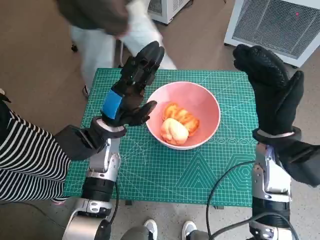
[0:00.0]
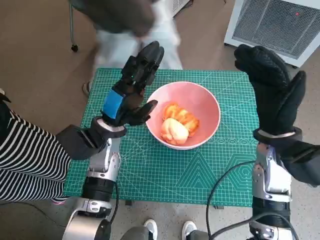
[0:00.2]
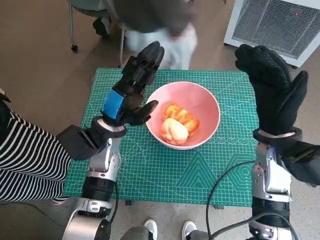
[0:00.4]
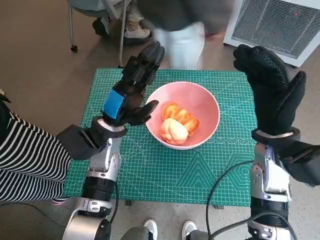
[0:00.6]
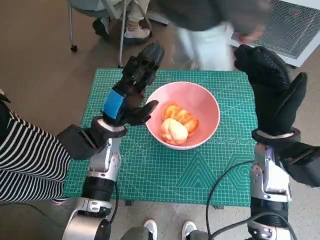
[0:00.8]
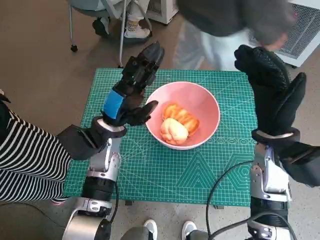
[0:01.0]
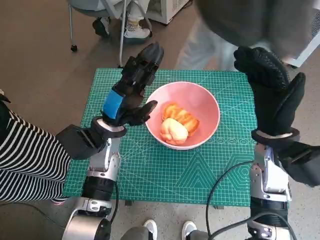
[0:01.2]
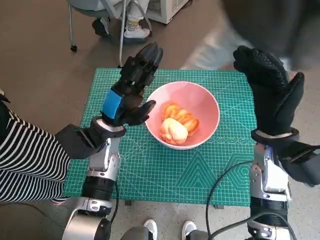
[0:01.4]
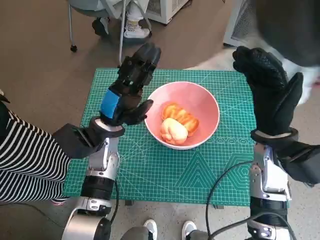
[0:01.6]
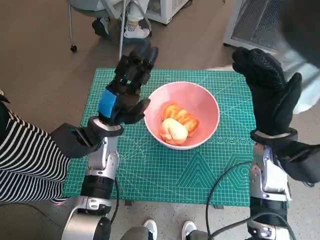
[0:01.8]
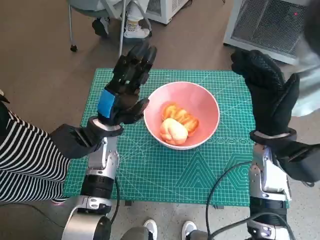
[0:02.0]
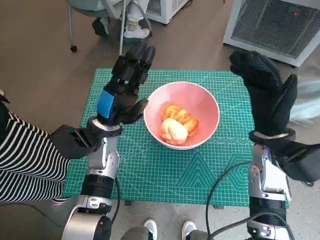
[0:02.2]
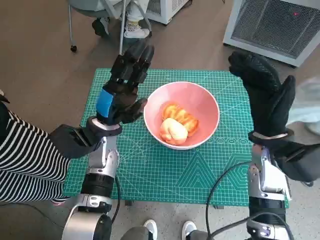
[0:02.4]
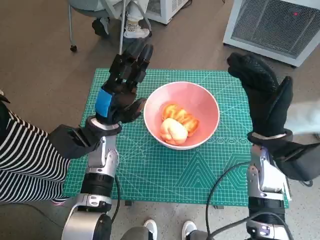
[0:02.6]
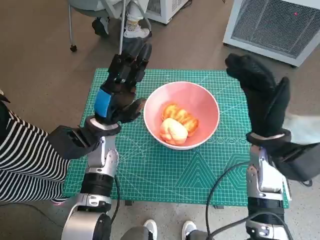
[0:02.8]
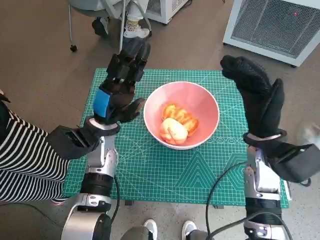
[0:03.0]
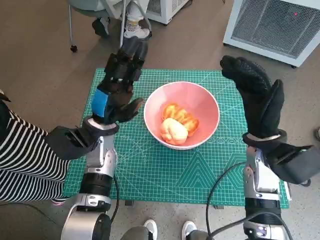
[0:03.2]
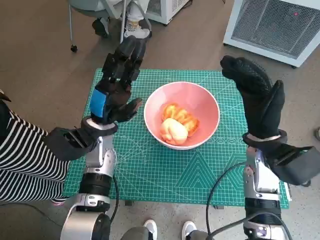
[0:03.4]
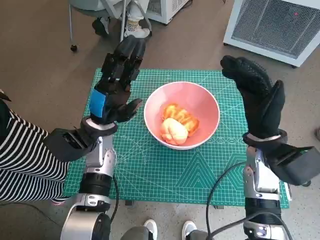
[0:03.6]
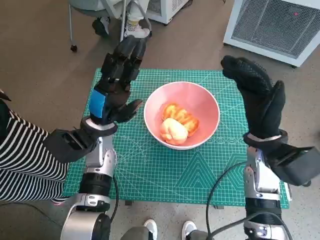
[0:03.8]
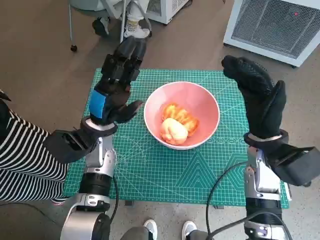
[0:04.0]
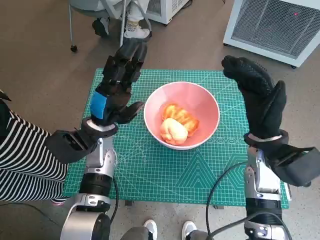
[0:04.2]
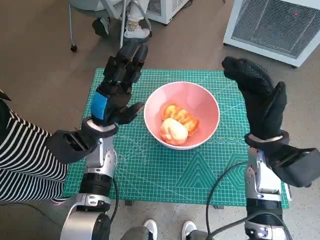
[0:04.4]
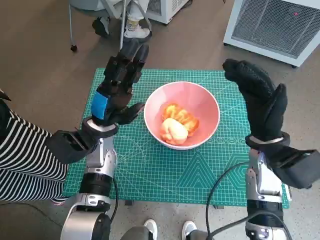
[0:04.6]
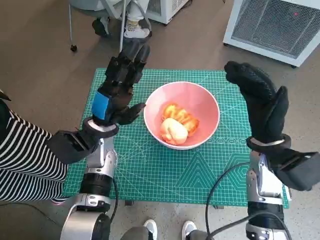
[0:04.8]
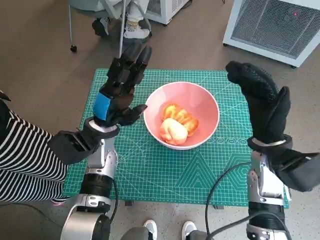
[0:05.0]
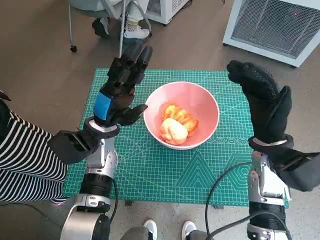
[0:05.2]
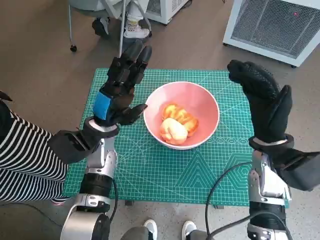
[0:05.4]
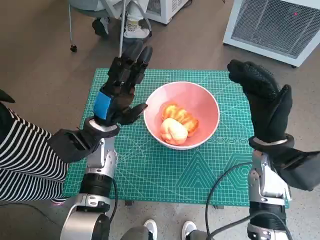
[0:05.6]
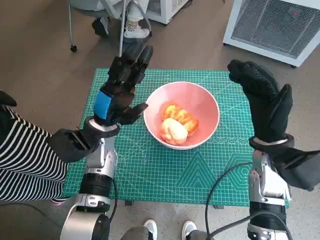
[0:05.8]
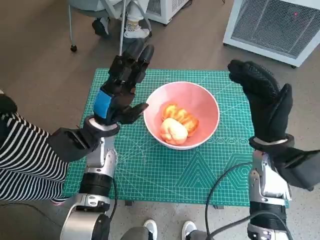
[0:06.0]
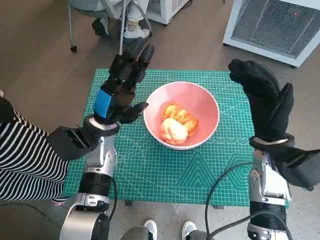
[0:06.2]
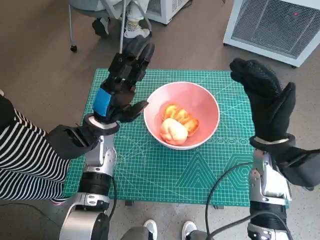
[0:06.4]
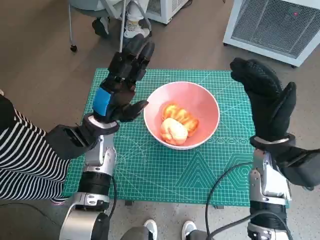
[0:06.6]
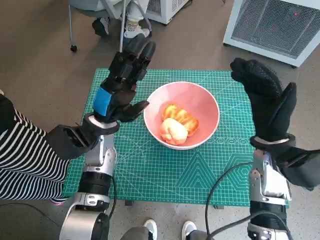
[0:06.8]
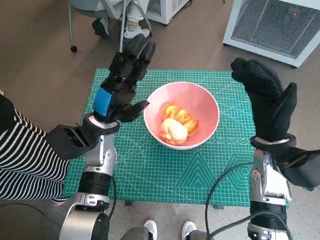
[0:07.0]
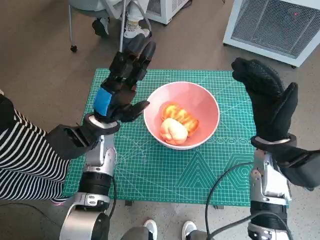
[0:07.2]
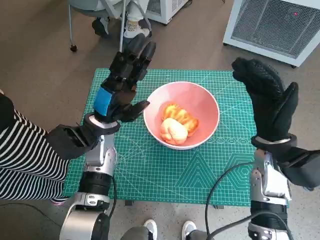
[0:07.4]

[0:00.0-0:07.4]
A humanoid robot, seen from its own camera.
Task of the whole recording: Push the bowl into the center of the table and put the bread into the bowl.
0:03.0 to 0:07.4: Both hands stay put.

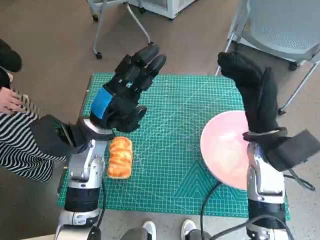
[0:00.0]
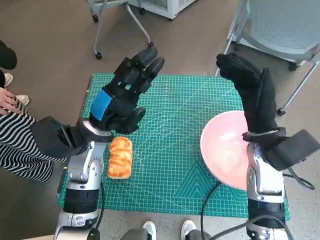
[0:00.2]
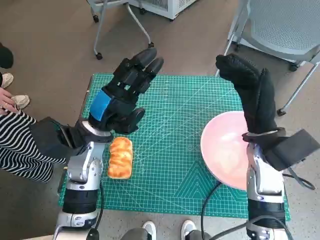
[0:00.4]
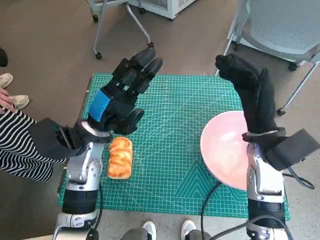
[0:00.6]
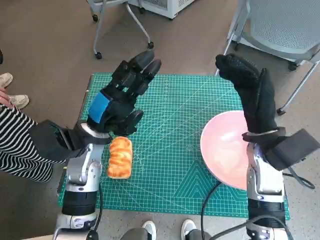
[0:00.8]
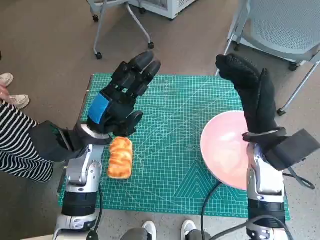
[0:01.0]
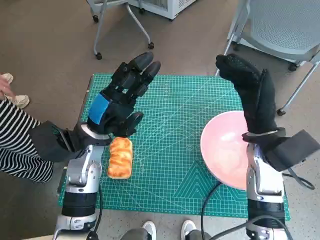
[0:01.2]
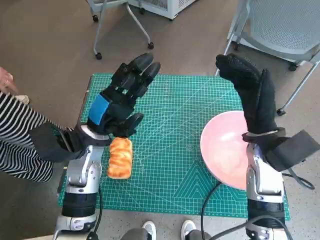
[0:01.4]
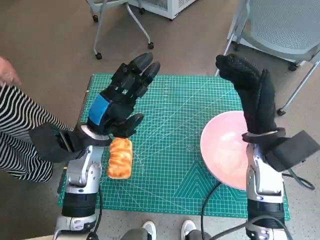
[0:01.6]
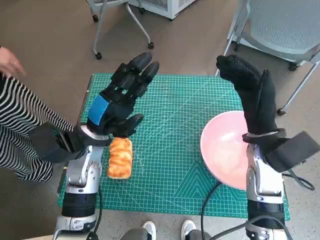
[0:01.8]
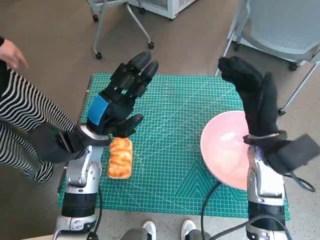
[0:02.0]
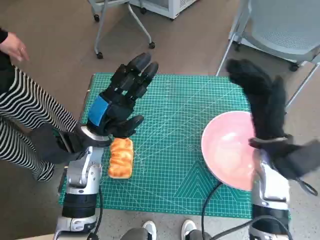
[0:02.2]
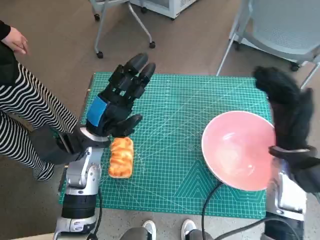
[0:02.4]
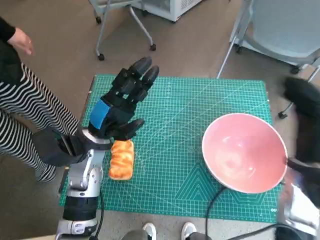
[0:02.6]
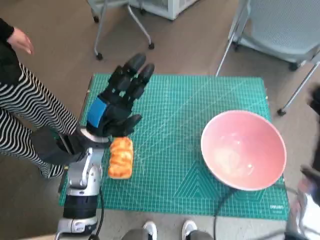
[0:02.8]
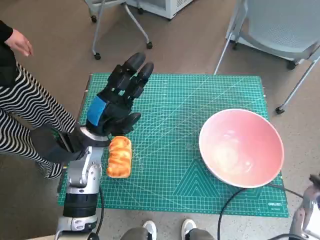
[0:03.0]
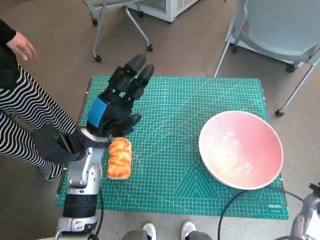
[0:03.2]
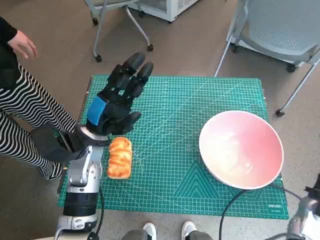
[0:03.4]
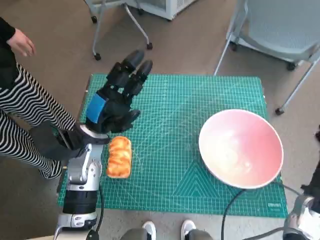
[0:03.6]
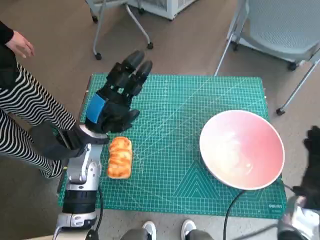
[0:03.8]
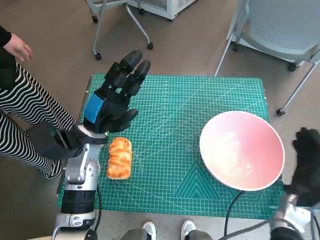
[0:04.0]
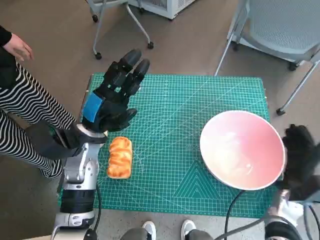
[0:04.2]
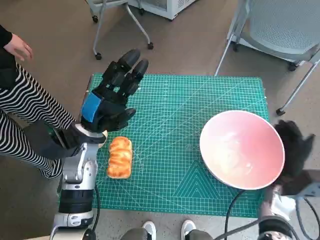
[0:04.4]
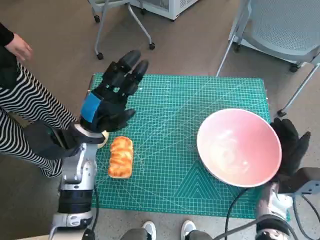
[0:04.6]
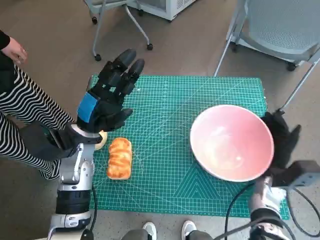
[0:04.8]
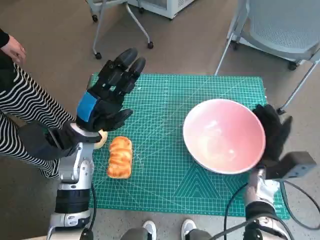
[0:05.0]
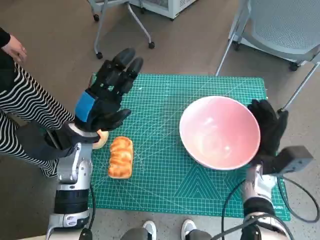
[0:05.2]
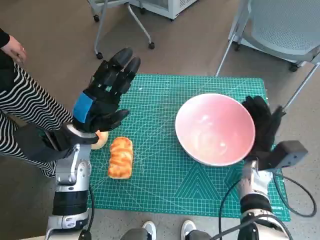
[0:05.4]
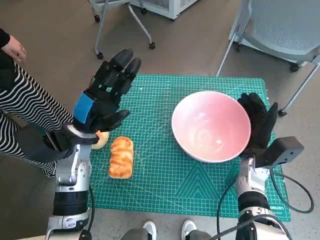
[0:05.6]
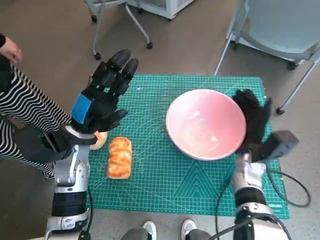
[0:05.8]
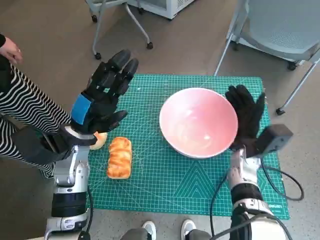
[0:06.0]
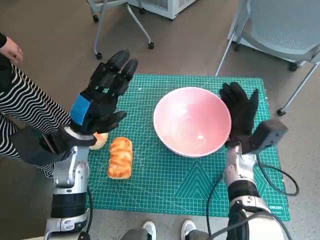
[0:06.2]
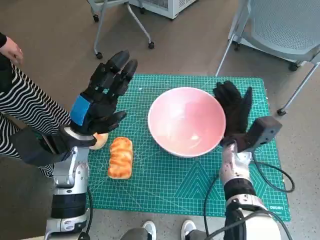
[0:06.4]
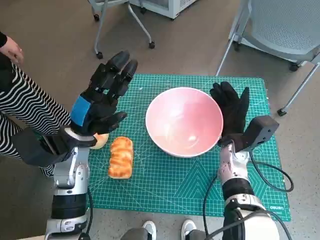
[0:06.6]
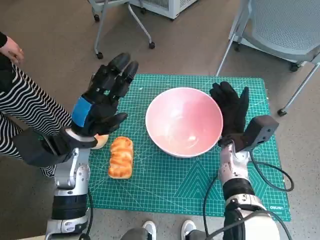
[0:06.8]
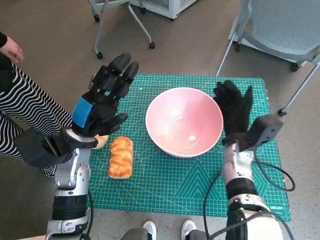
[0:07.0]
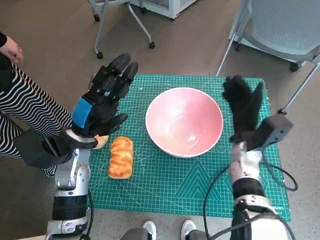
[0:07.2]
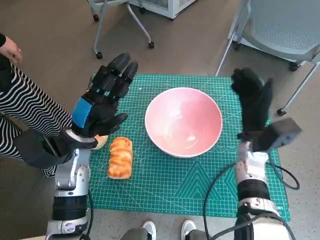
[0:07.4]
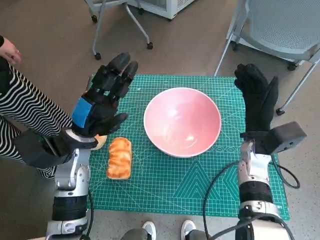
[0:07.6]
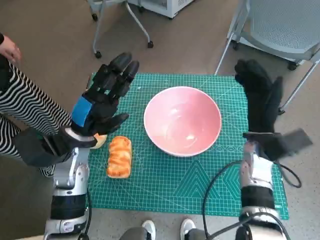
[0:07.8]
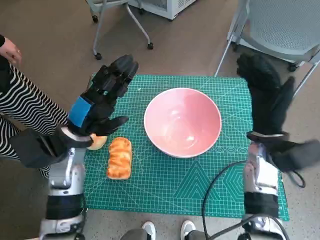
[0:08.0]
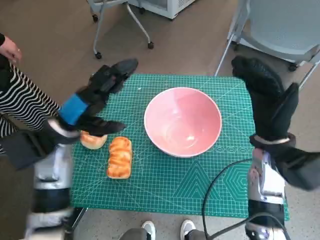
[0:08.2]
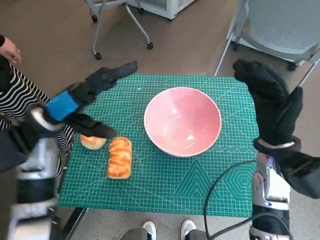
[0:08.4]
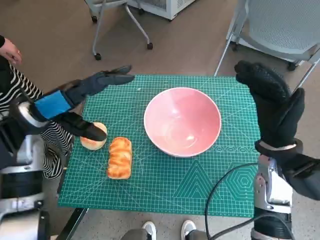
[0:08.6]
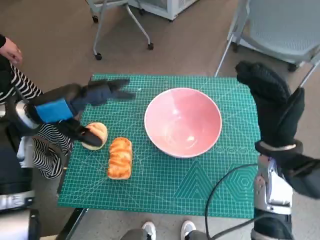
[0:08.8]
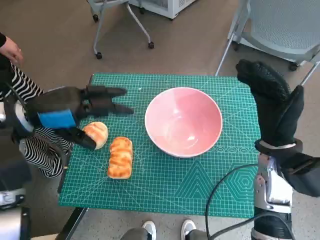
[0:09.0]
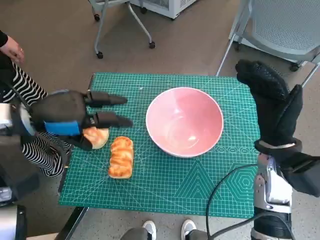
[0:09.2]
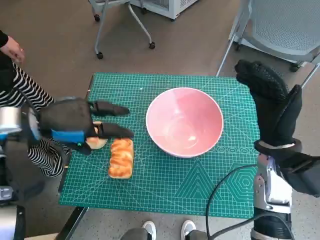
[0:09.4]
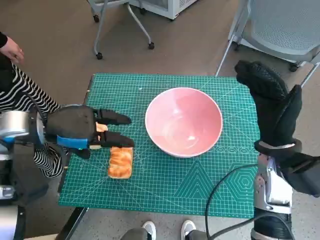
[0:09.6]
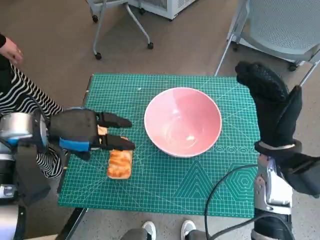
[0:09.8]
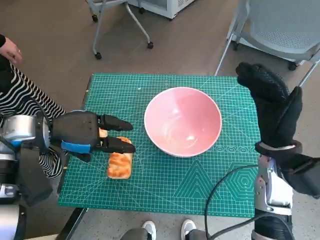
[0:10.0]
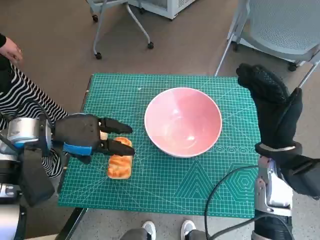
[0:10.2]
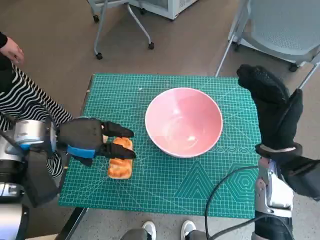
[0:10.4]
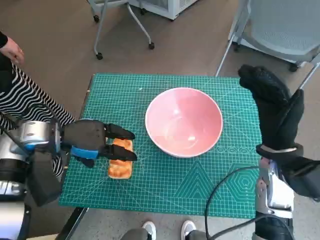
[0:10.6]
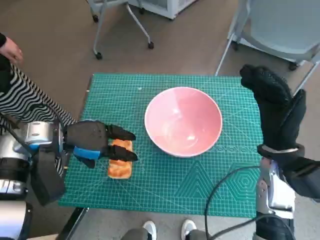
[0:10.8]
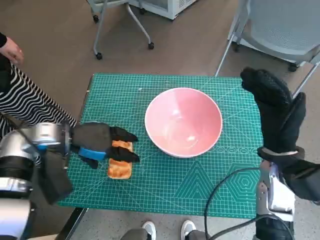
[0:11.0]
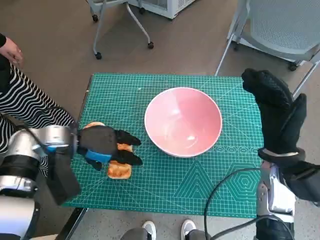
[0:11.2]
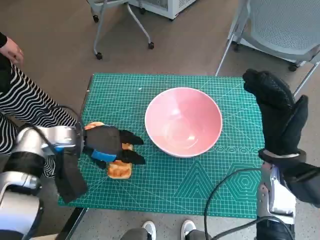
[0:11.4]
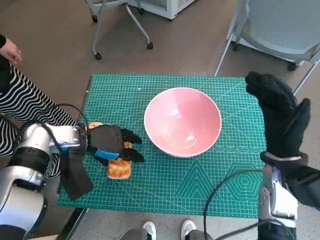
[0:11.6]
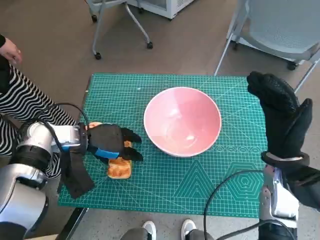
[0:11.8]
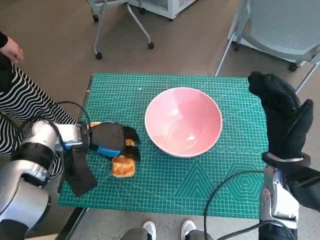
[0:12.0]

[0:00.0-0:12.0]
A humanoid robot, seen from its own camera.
Task of the whole recording: Push the bowl into the center of the table and put the bread into the bowl.
Step, 0:00.0 to 0:07.2: Move the pink bowl to the center of table with right hand.
0:01.6 to 0:03.0: The right hand moves to the right and backward, approximately 15 cm.
0:03.0 to 0:04.4: The right hand shifts some 10 cm downward.
0:04.4 to 0:06.0: The right hand is displaced to the left and forward by roughly 10 cm.
0:07.6 to 0:09.0: The left hand shifts approximately 10 cm upward and to the left. Meanwhile the right hand moves upward, some 5 cm.
0:09.0 to 0:10.4: The left hand shifts roughly 5 cm downward.
0:10.4 to 0:12.0: The left hand moves downward, roughly 5 cm.

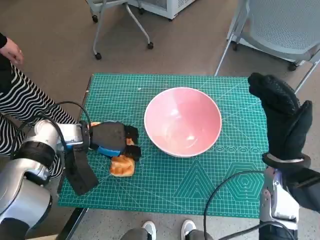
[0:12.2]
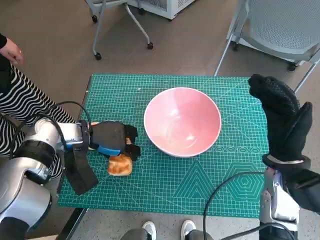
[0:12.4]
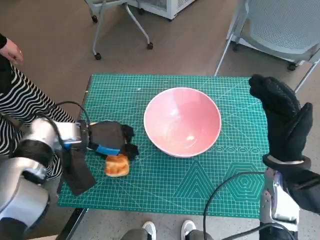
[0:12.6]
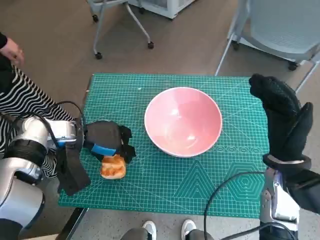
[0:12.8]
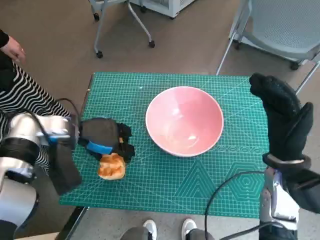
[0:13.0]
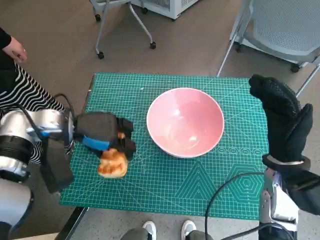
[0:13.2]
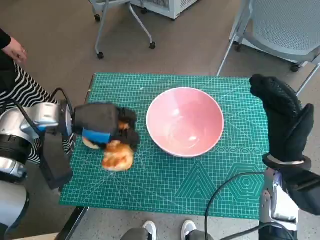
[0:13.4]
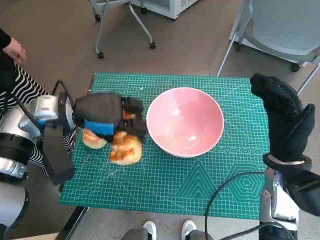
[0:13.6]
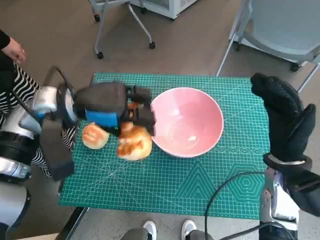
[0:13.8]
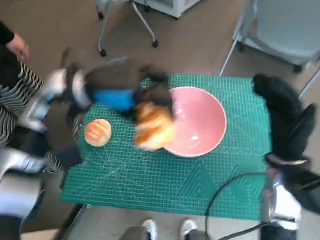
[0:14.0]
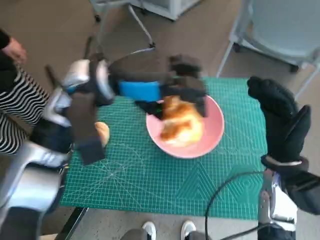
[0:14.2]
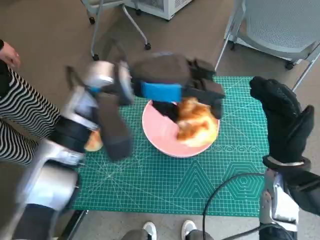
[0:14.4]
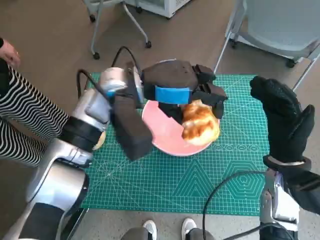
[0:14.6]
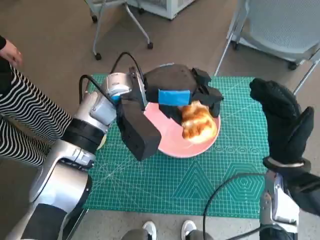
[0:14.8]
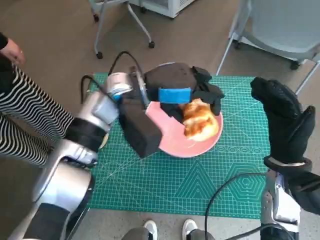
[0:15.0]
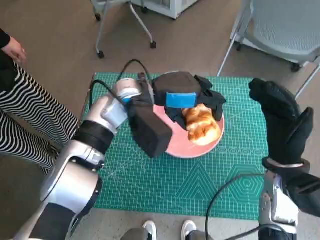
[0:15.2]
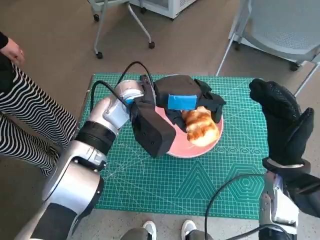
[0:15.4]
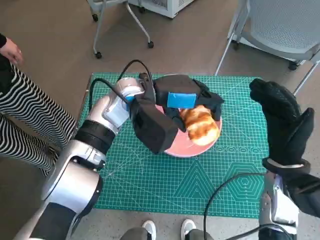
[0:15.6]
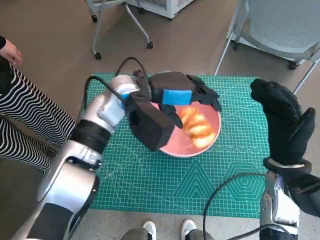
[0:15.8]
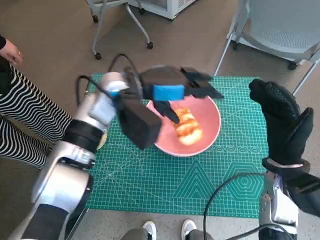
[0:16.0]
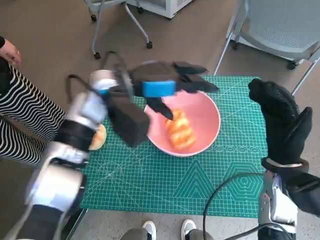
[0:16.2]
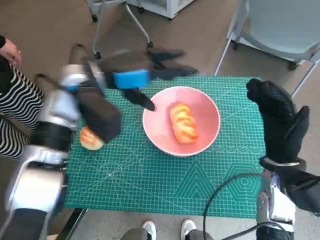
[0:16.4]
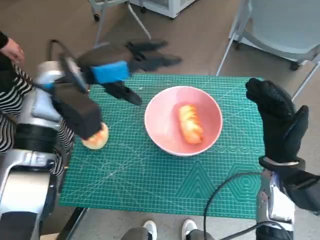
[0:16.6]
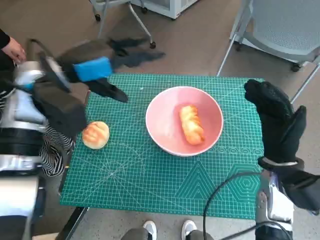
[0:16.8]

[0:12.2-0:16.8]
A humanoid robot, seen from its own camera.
Task of the whole recording: Push the bowl into the center of the table and put the bread into the bowl.
Step, 0:12.4 to 0:16.0: Place the long bread in pink bowl with left hand.
0:12.2 to 0:13.8: The left hand moves upward, roughly 10 cm.
0:13.8 to 0:15.2: The left hand is displaced to the right by about 10 cm.
0:15.2 to 0:16.8: The left hand heads to the left and upward, covering roughly 15 cm.
